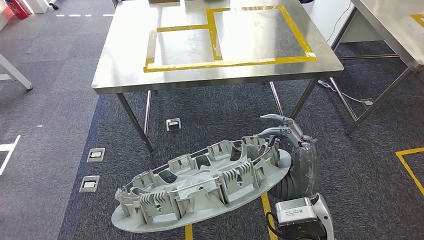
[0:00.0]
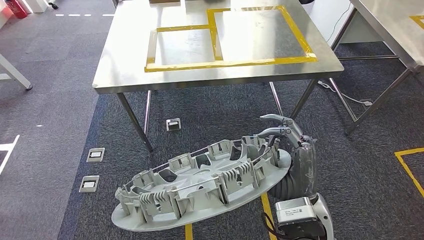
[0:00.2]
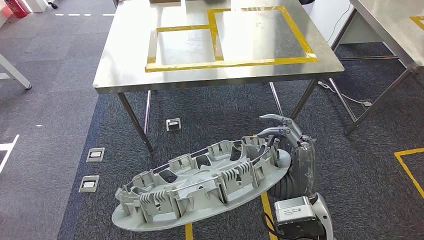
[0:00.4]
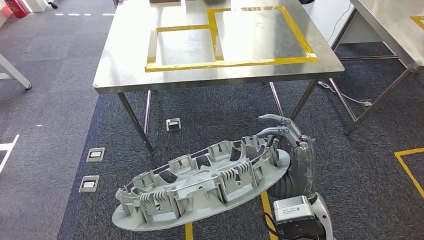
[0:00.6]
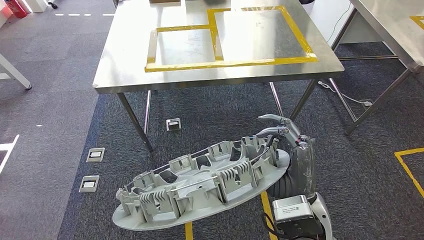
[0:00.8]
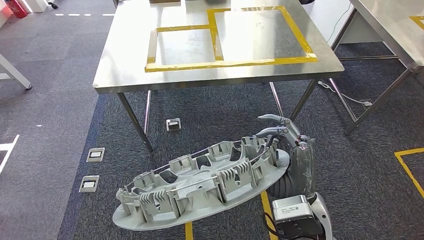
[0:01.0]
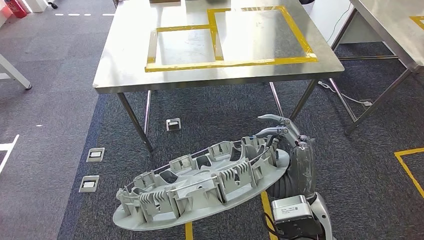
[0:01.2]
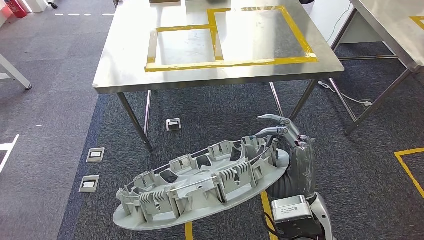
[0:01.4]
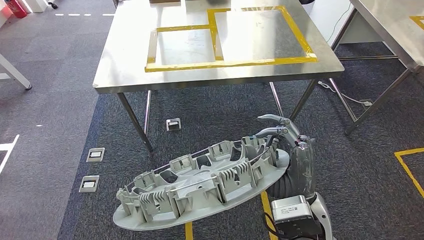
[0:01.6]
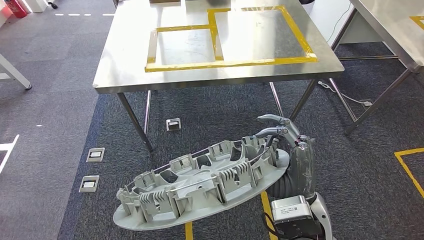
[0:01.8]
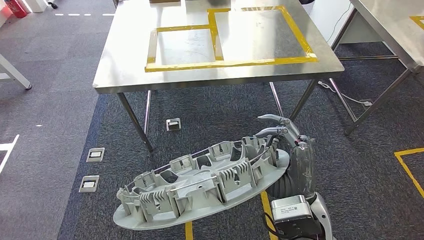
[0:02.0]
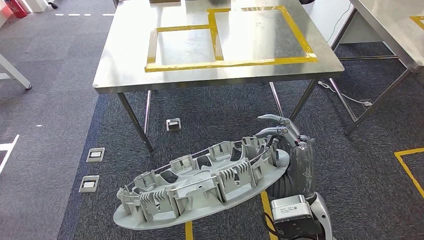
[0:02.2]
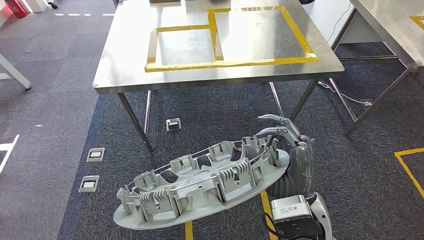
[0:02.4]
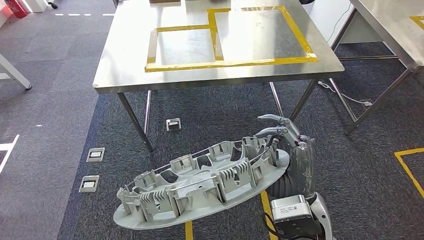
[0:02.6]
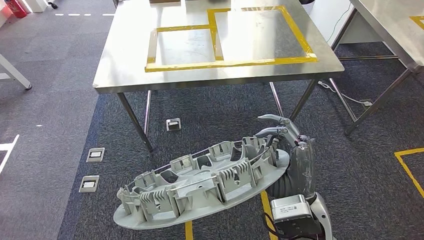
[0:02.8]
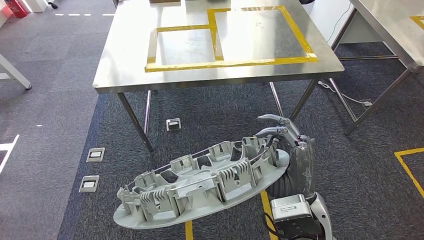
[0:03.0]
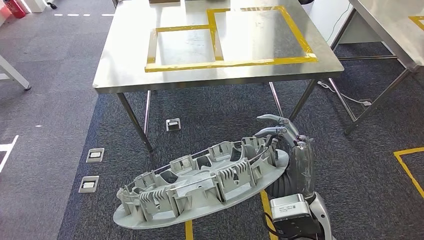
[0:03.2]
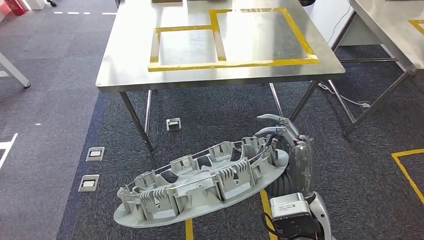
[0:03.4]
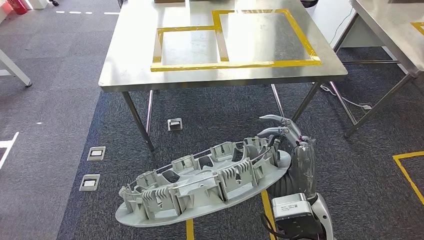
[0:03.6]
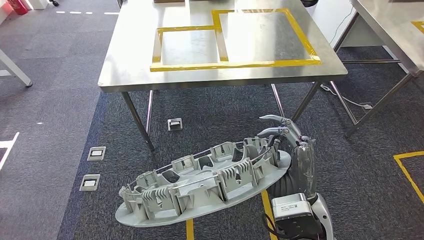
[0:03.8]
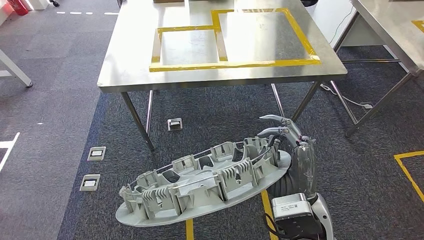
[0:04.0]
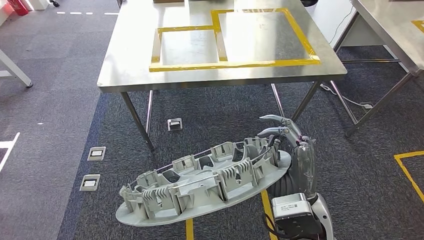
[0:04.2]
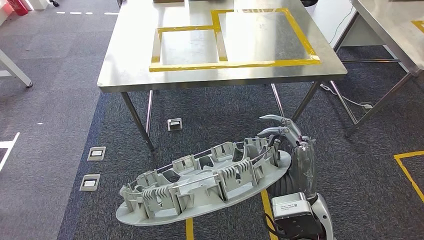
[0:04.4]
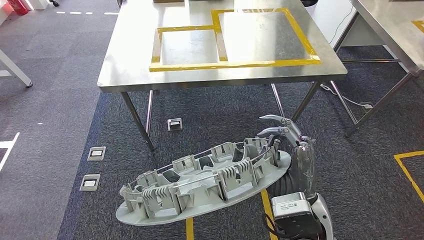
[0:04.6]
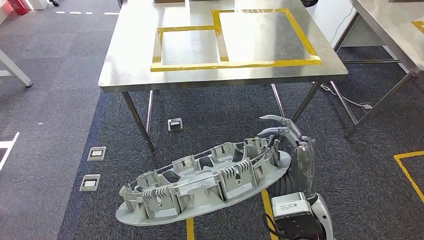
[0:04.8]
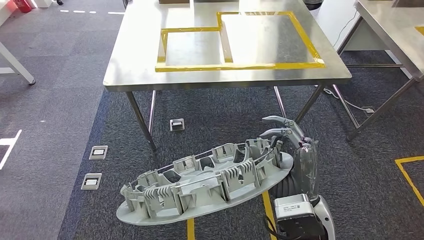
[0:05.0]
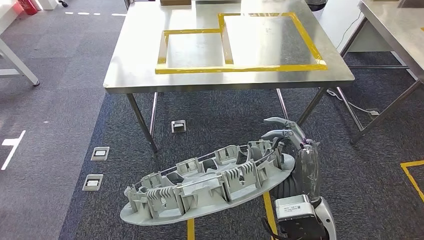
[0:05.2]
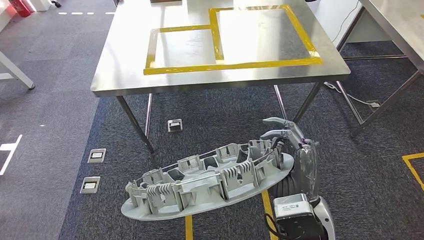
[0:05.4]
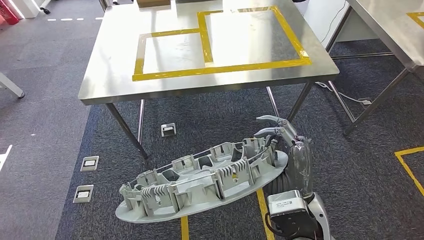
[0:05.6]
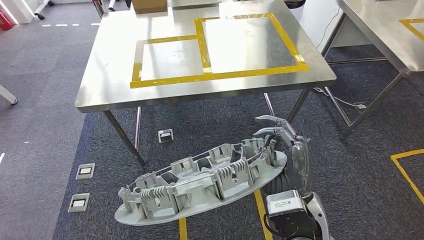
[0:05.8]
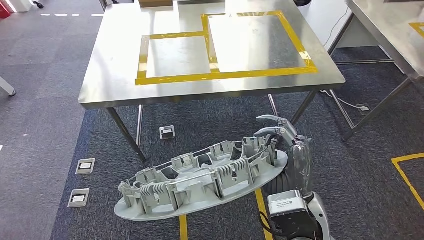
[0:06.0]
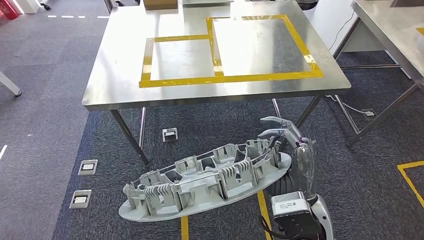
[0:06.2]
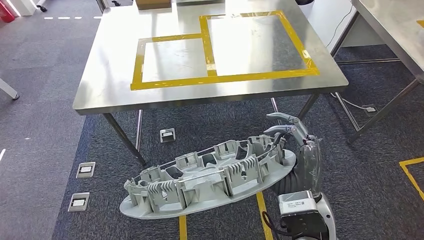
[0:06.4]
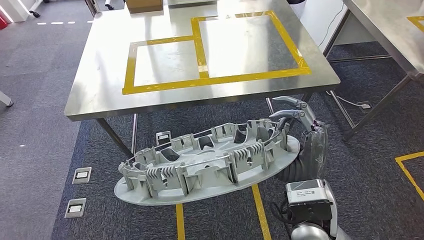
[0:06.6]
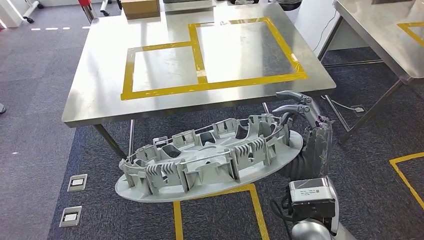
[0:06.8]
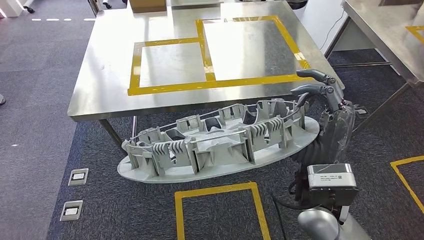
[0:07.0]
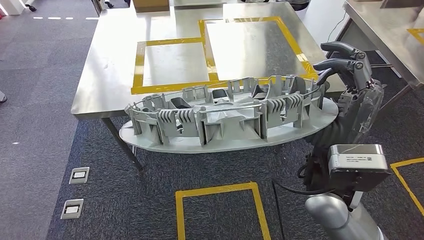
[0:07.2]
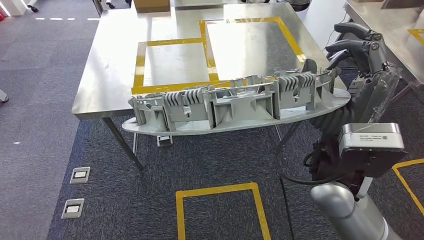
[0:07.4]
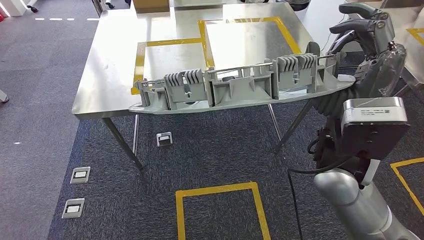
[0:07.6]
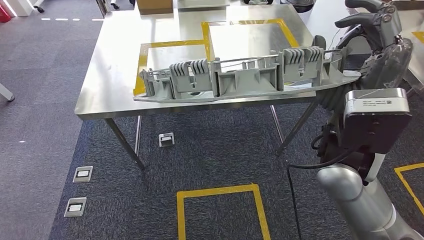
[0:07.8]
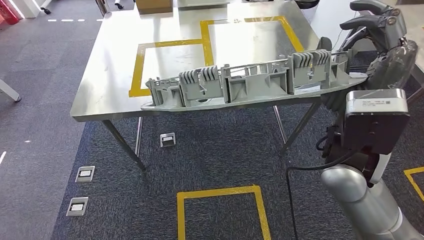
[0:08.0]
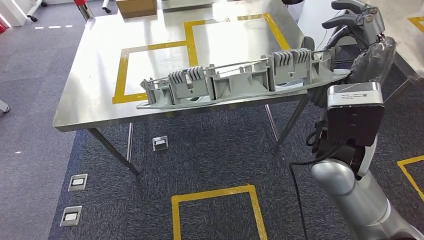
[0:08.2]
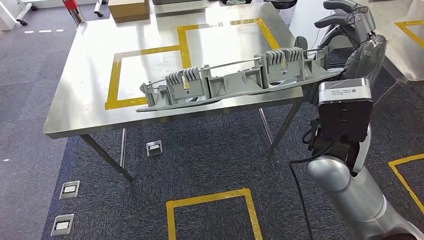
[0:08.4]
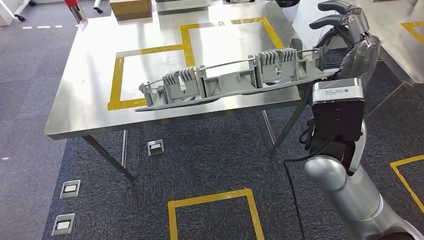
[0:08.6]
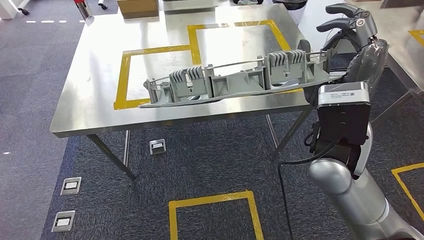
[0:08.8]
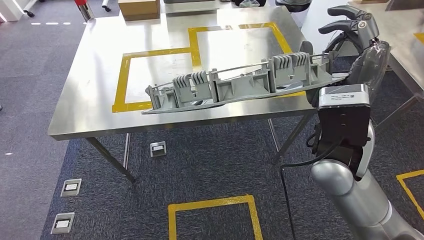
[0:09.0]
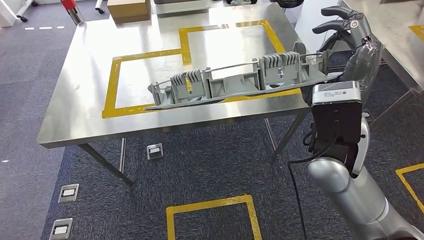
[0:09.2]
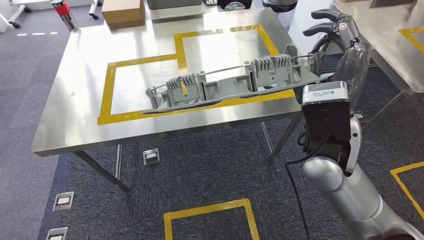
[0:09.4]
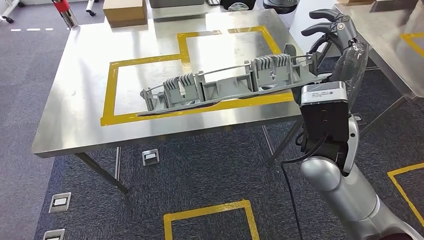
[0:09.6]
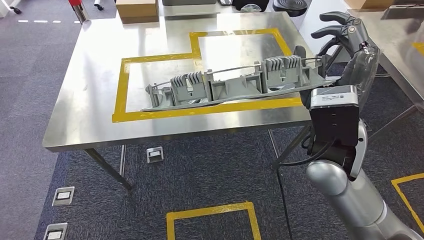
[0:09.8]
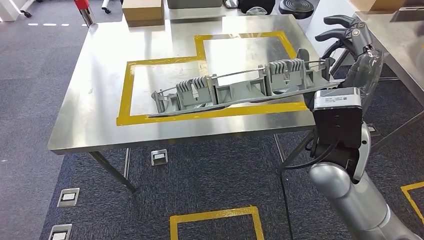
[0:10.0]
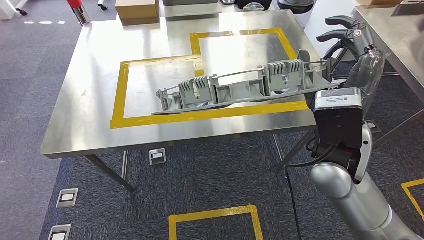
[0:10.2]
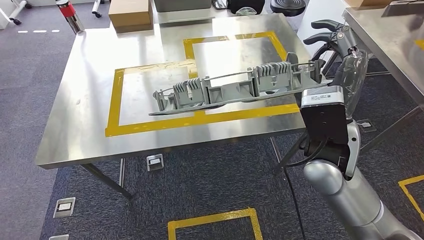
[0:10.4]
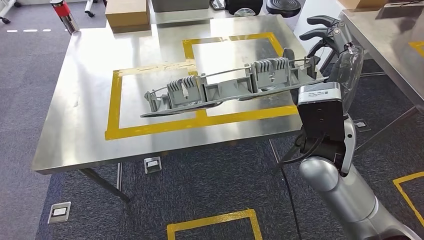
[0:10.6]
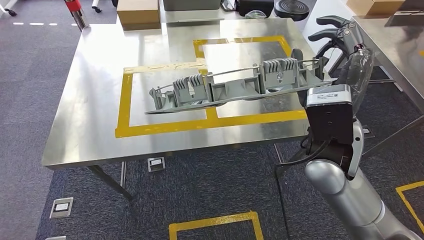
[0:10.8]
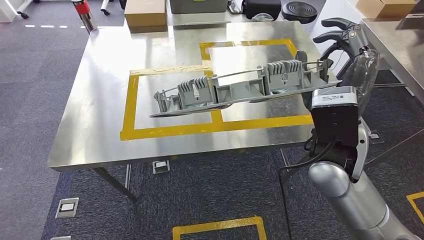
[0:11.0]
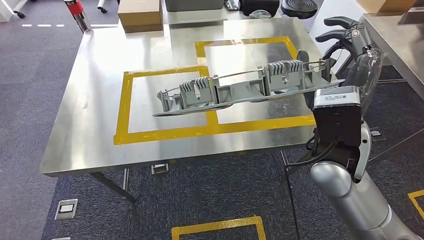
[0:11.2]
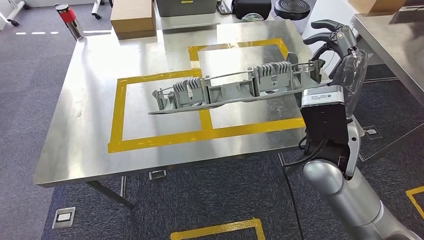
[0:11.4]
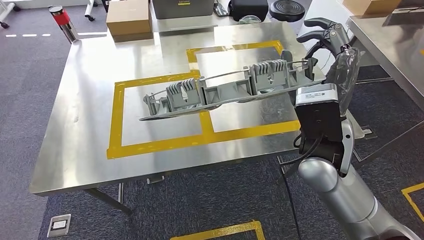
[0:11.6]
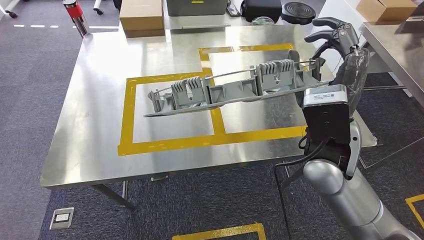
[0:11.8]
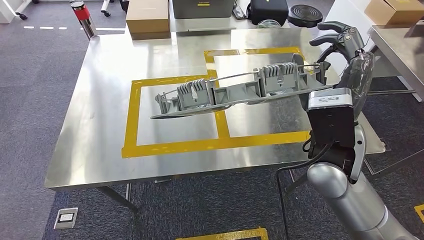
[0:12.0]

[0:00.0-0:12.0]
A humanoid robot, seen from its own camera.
Step, 0:00.0 to 0:05.4: Move the large material to the workbench.
0:00.0 to 0:04.4: Both hands stay put.

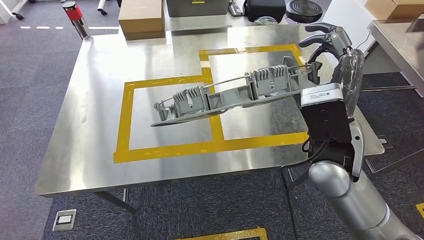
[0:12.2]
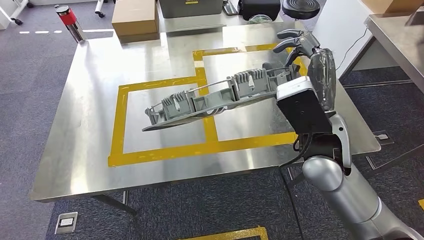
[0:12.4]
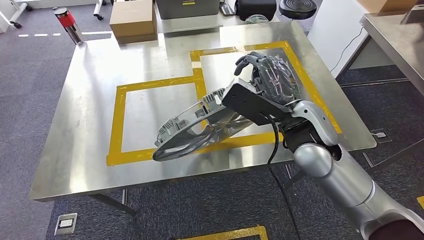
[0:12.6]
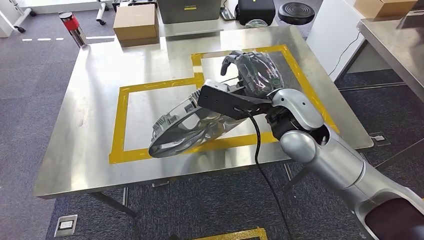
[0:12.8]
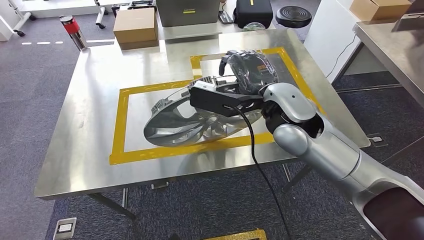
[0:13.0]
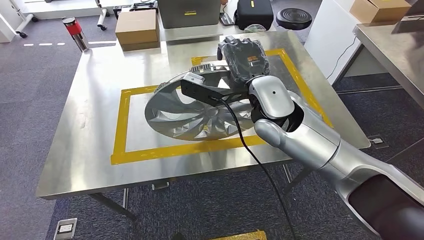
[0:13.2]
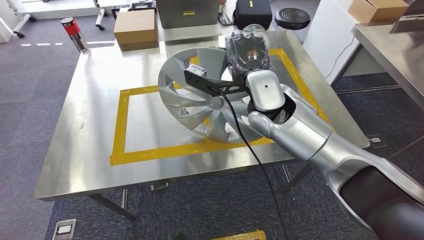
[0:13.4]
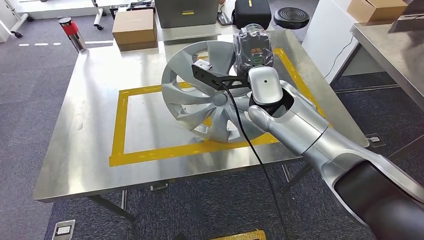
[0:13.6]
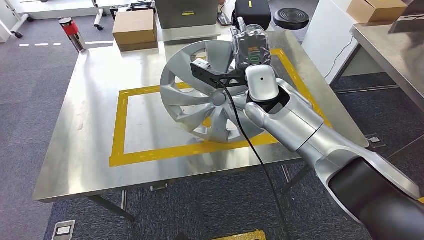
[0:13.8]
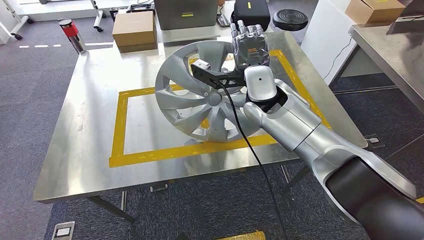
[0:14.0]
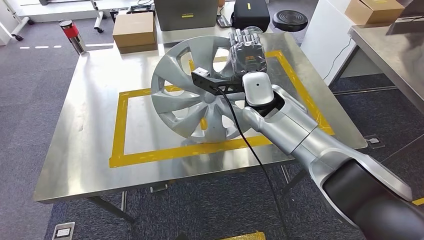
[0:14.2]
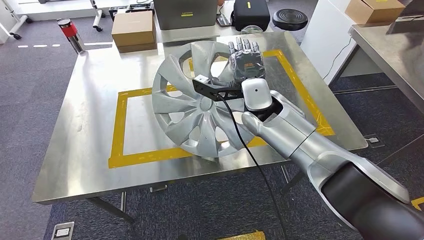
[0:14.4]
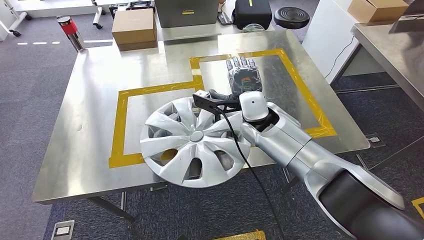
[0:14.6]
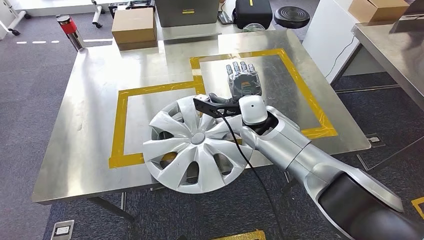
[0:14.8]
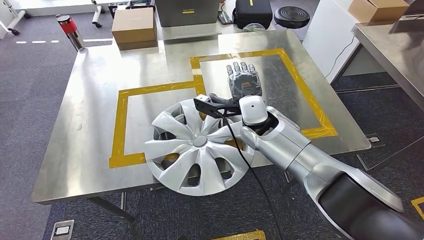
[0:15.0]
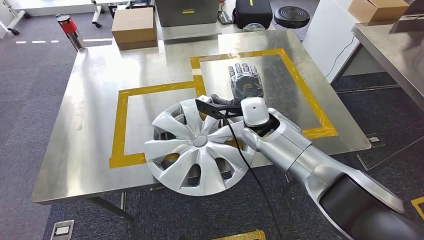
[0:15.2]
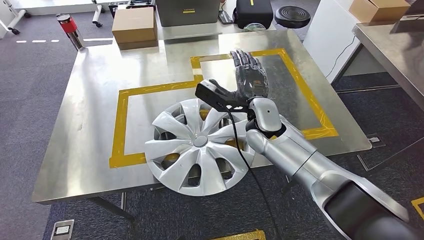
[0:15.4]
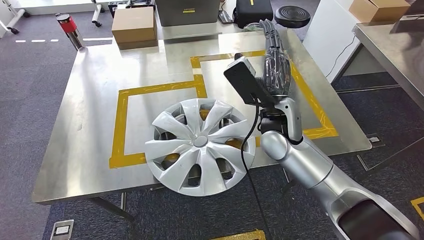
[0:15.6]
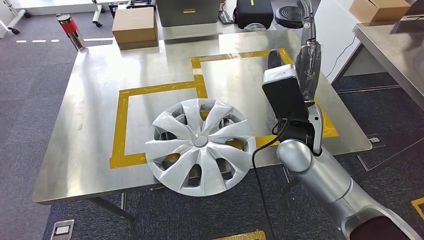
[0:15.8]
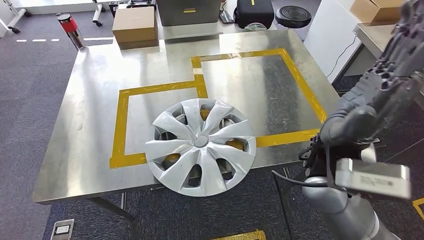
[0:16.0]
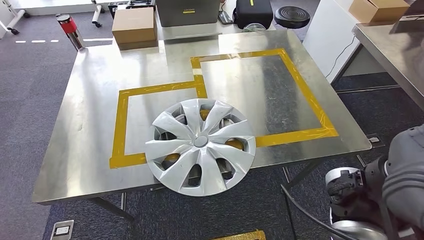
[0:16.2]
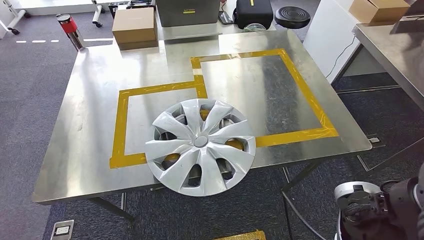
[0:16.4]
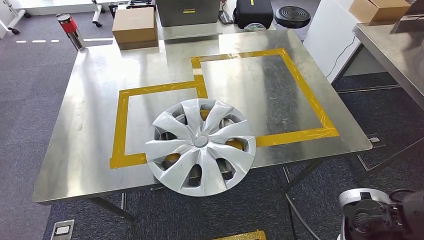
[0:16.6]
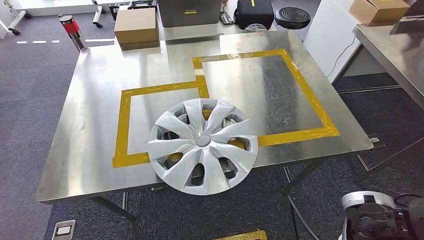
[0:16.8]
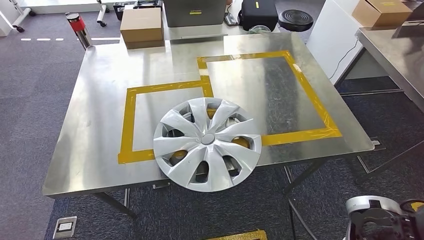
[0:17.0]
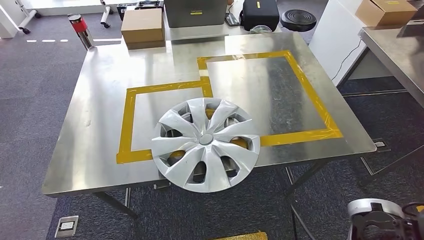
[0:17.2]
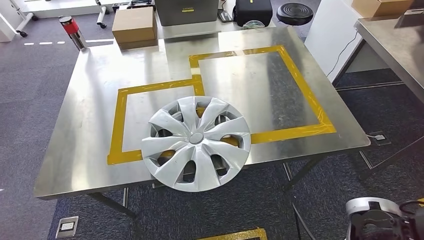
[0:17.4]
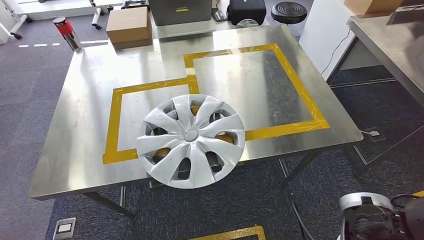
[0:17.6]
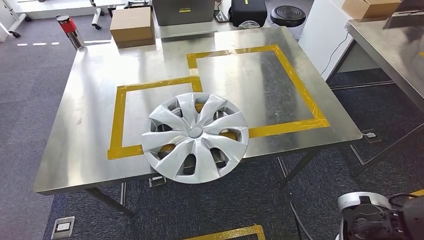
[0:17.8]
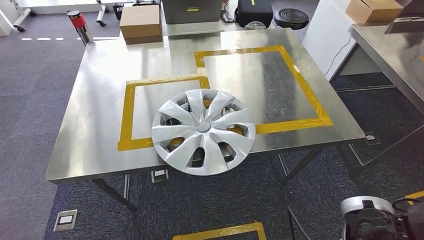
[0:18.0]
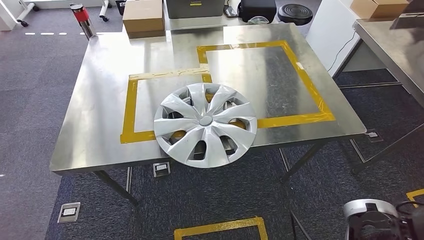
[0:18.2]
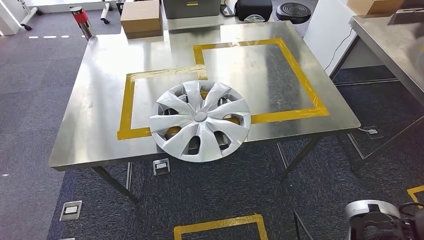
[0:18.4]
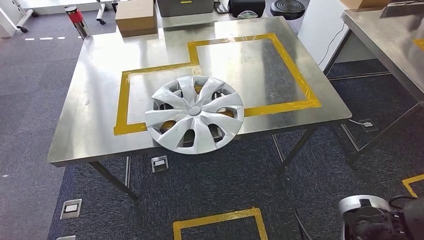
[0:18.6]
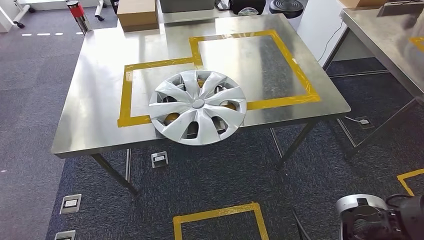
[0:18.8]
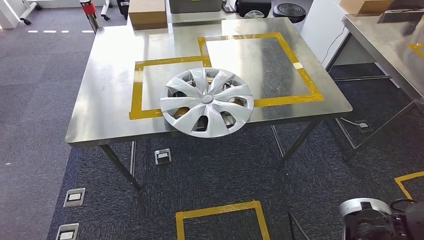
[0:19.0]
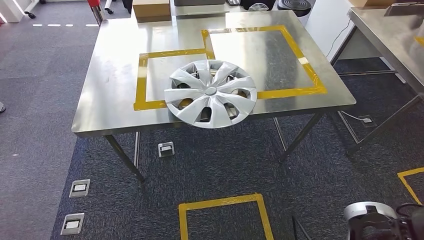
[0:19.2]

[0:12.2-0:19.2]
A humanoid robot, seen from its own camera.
Step, 0:12.2 to 0:15.4: Insert the large material into the corresponding slot on the workbench.
0:15.0 to 0:16.4: The right hand heads backward and upward, covering roughly 25 cm.
